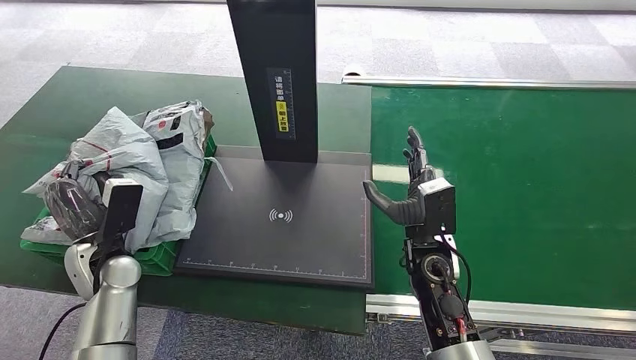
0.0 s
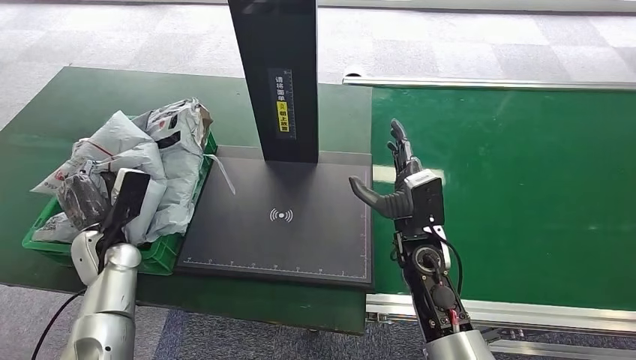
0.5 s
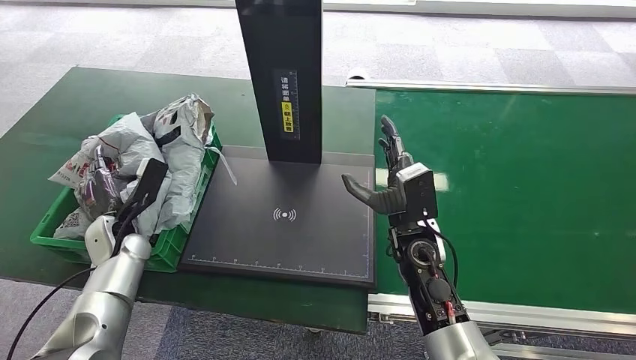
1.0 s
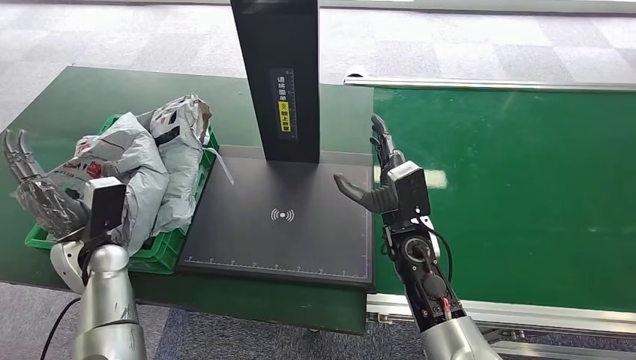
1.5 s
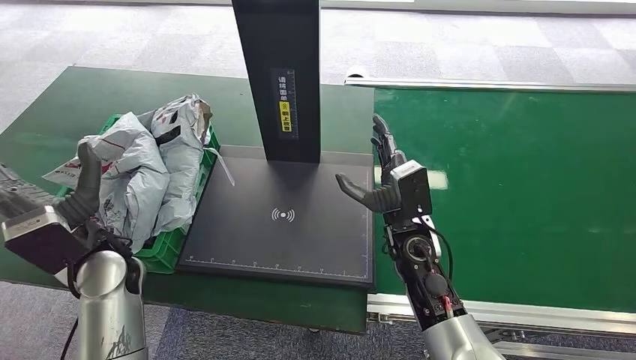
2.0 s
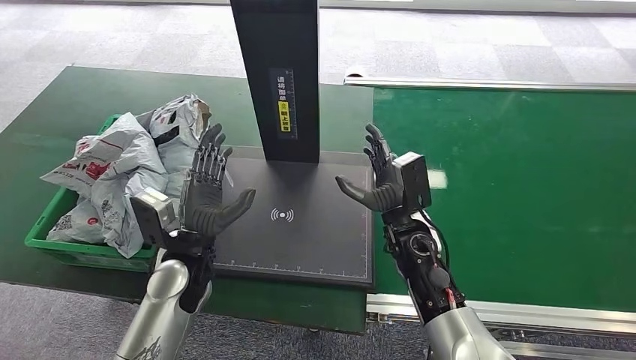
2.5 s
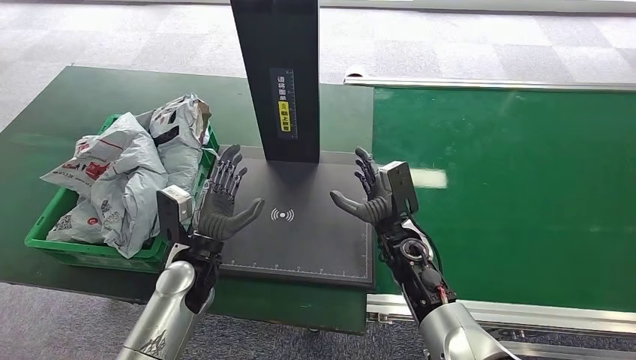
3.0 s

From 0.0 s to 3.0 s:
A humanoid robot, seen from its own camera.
Step, from 0.0 s to 3.0 s: Place the package into the parcel locker.
From 1.5 s to 3.0 s: The left hand travels to the right by some 15 cm.
